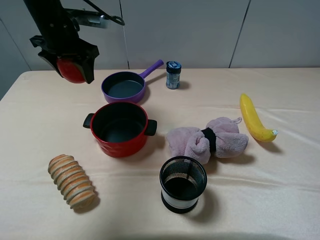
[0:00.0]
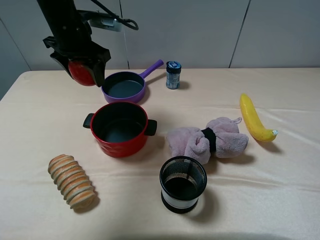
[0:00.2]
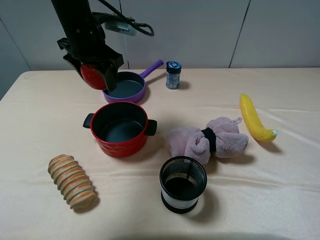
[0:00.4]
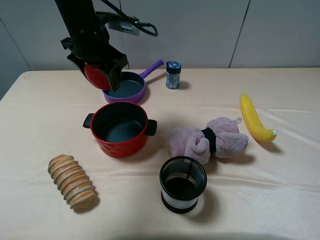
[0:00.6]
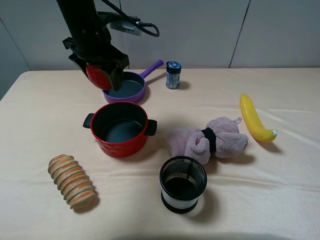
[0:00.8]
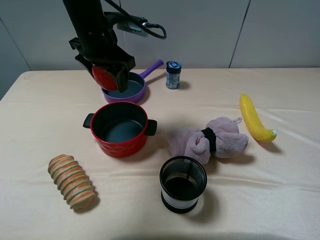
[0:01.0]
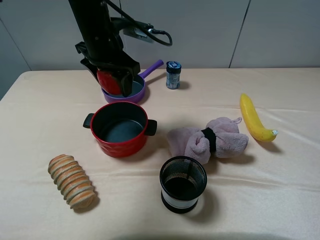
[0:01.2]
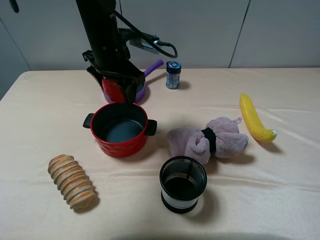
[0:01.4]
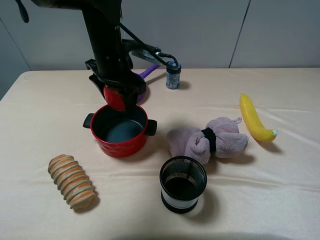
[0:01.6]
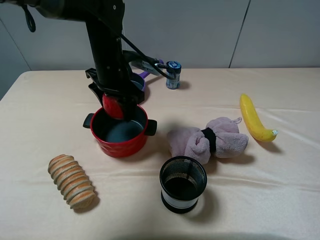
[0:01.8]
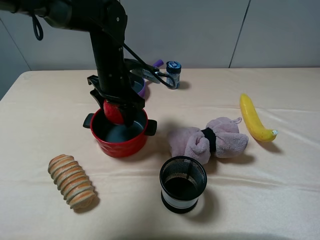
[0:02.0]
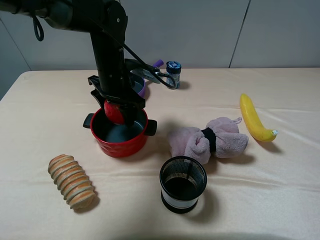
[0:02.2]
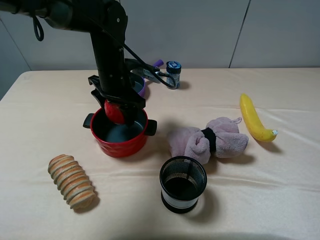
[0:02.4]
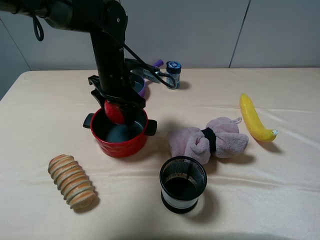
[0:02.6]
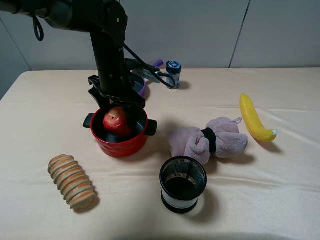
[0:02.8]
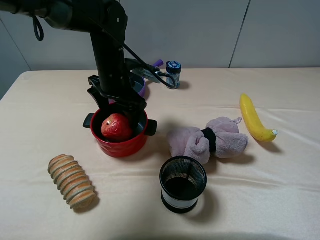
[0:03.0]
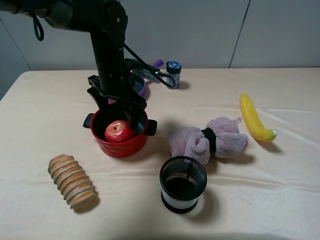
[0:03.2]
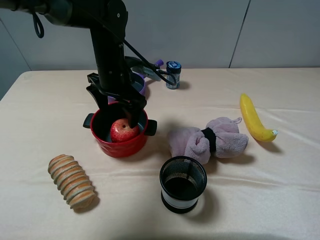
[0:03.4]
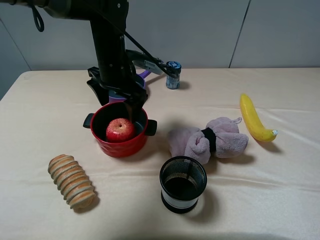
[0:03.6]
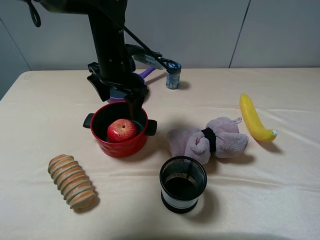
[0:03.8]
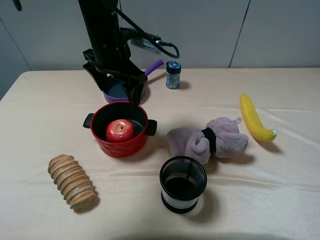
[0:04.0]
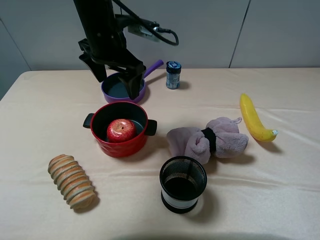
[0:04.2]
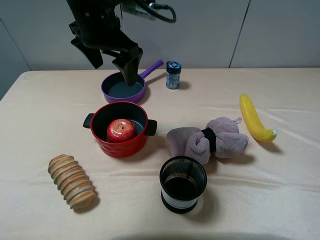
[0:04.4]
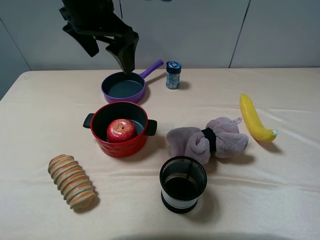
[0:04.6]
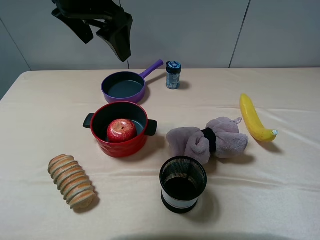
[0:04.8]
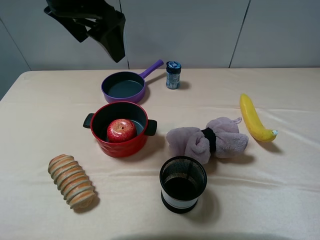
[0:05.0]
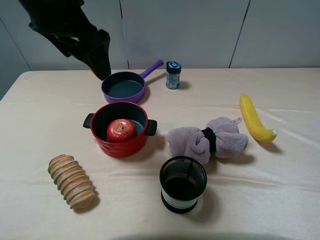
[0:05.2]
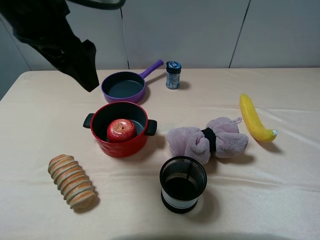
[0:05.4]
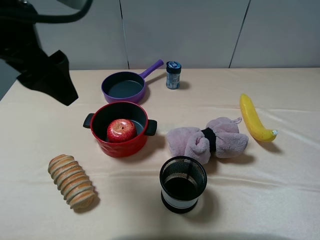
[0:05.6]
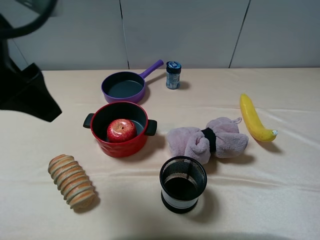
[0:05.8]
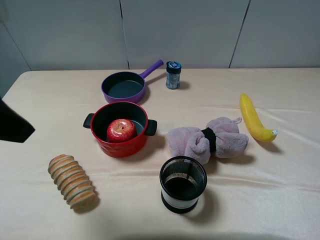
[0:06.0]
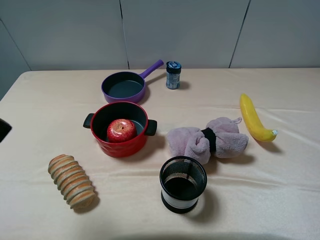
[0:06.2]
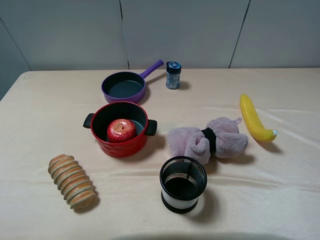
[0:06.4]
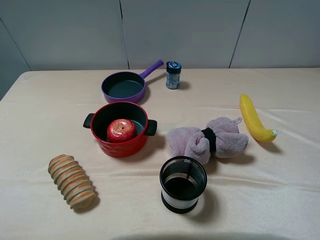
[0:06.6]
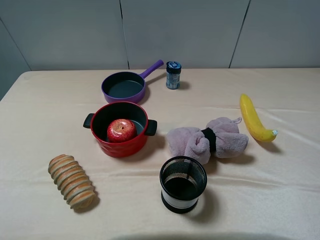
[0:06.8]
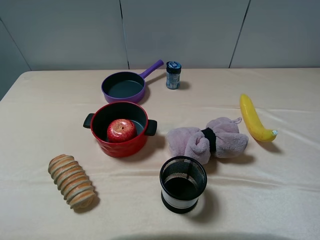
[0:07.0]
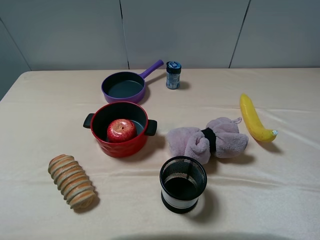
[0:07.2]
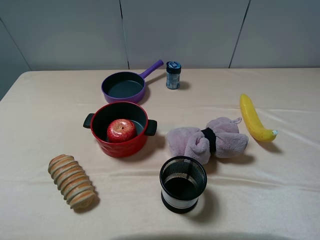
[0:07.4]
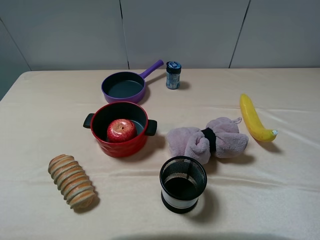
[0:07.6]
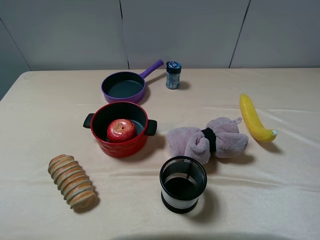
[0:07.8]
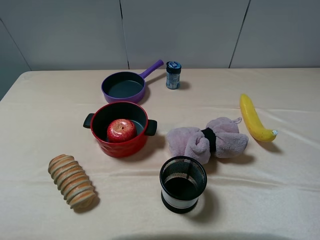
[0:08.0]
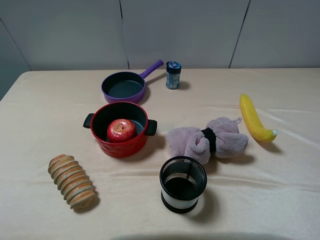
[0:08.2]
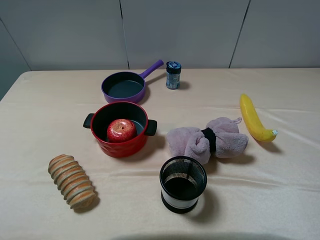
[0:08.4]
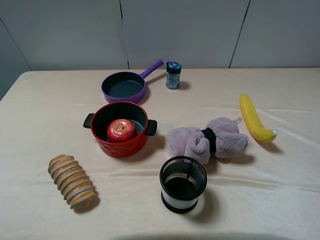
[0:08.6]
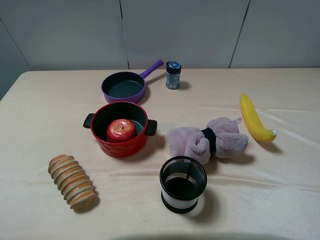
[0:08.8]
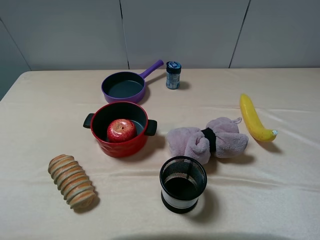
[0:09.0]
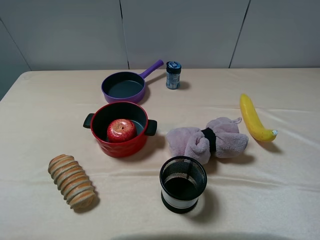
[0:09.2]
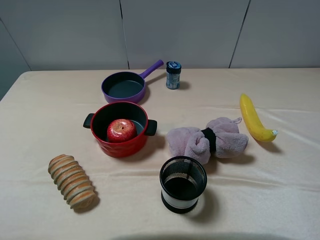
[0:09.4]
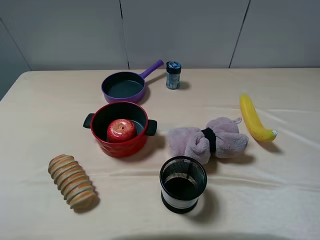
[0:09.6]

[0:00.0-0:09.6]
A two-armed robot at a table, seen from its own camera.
Task of the whole recording: pick up an item with a gripper and place it in a random container on the table.
Step, 0:00.0 to 0:04.6: Place the apple into the red pot with the left gripper.
0:00.0 to 0:01.6: The left gripper travels to the right by approximately 10 cm.
0:01.6 to 0:03.2: The left gripper opens.
0:03.2 to 0:04.8: The left gripper is displaced upward by about 20 cm.
0:04.8 to 0:06.4: The left gripper moves backward and to the left, some 30 cm.
0:08.0 to 0:09.6: Both grippers stay about where they are.
